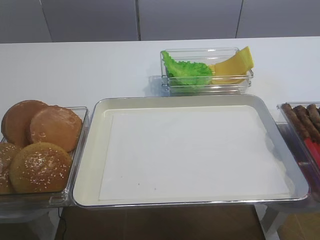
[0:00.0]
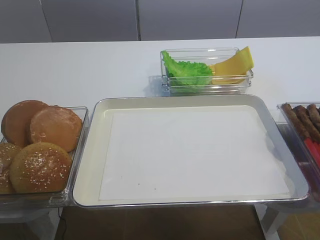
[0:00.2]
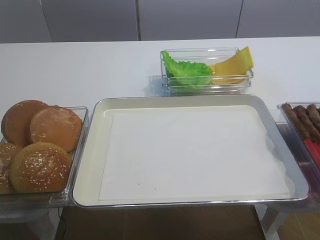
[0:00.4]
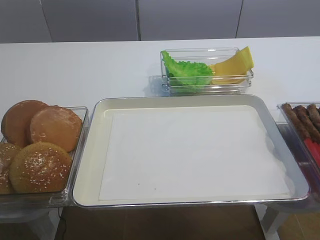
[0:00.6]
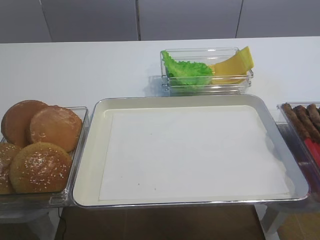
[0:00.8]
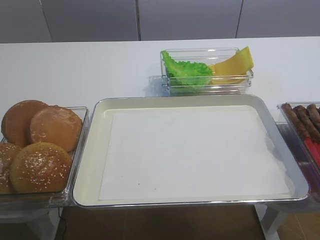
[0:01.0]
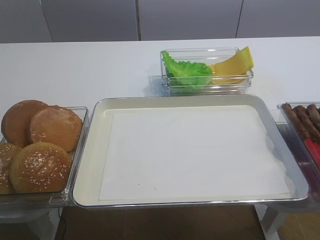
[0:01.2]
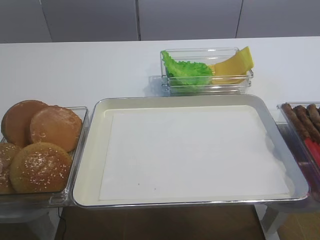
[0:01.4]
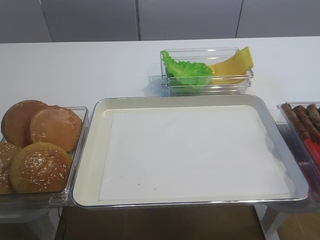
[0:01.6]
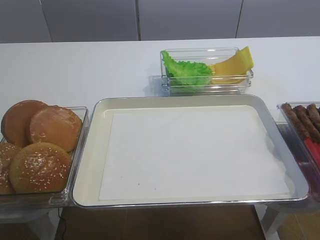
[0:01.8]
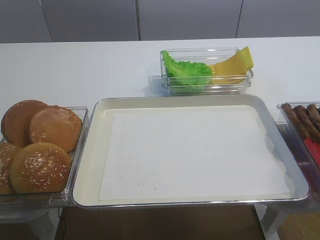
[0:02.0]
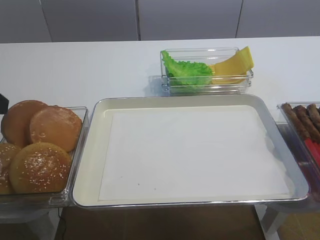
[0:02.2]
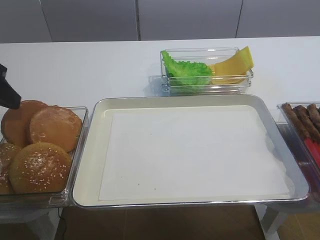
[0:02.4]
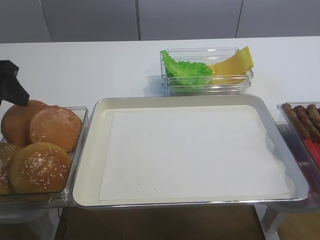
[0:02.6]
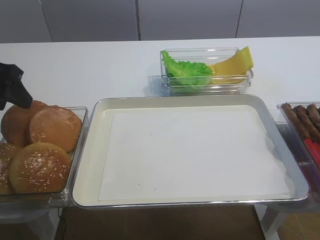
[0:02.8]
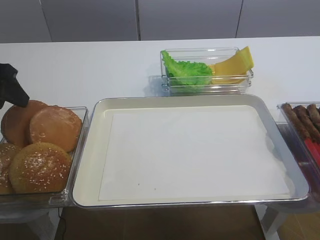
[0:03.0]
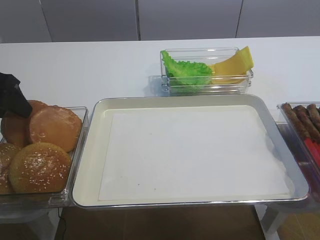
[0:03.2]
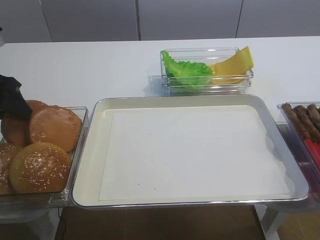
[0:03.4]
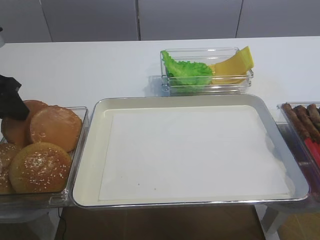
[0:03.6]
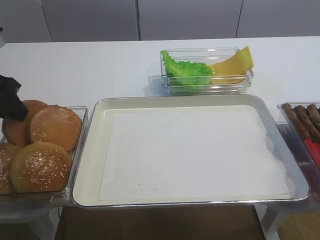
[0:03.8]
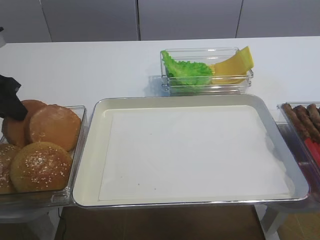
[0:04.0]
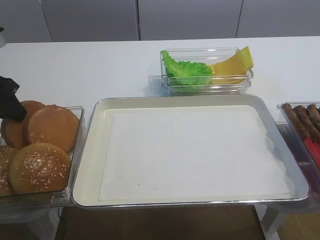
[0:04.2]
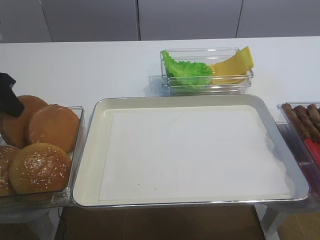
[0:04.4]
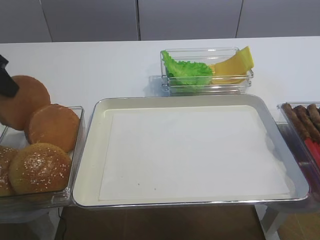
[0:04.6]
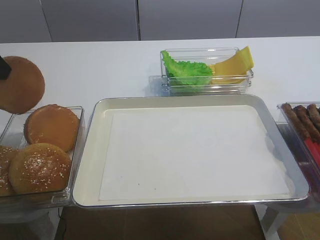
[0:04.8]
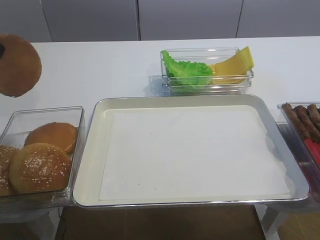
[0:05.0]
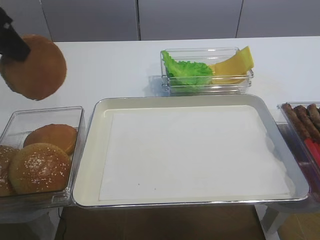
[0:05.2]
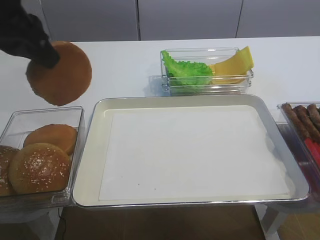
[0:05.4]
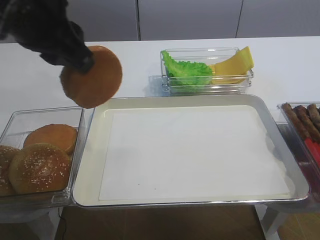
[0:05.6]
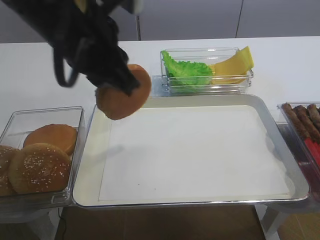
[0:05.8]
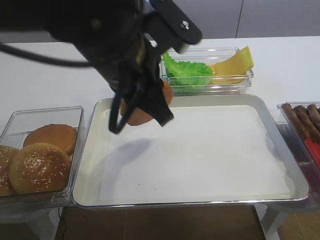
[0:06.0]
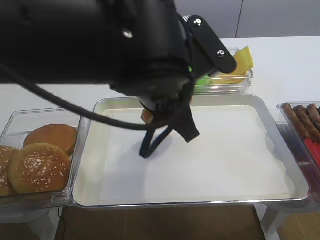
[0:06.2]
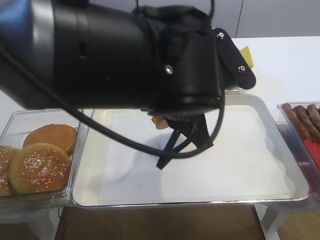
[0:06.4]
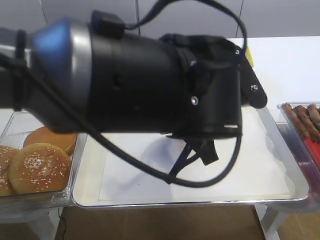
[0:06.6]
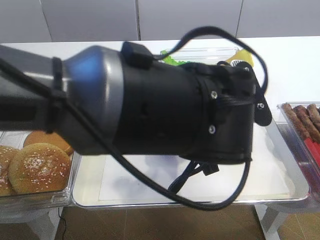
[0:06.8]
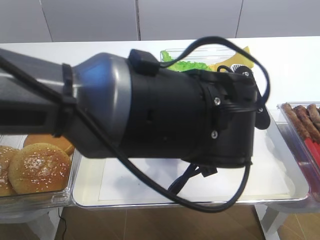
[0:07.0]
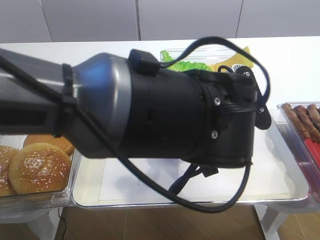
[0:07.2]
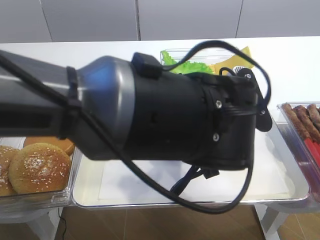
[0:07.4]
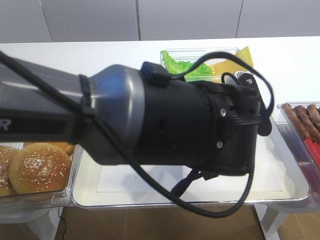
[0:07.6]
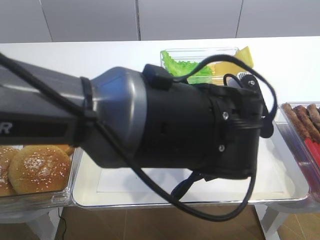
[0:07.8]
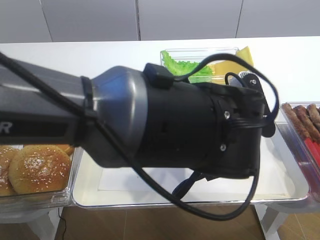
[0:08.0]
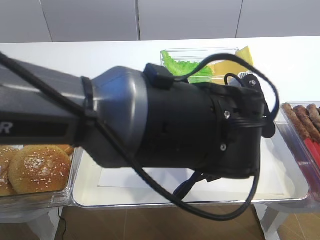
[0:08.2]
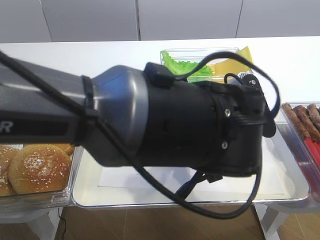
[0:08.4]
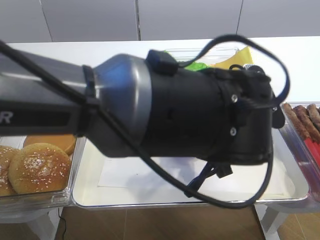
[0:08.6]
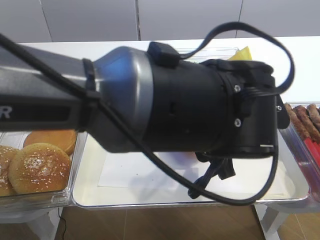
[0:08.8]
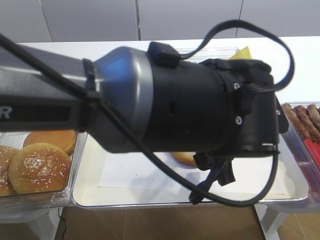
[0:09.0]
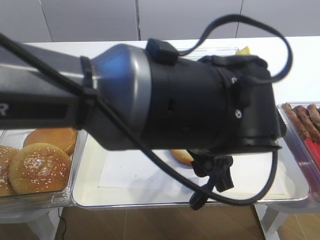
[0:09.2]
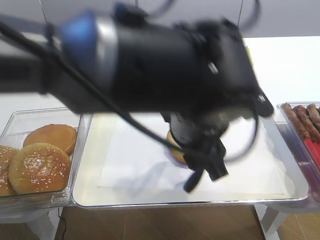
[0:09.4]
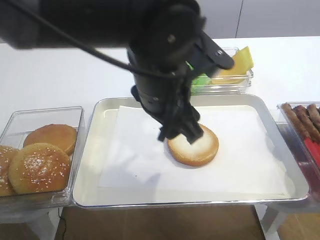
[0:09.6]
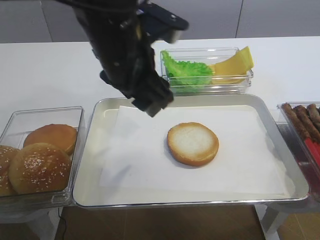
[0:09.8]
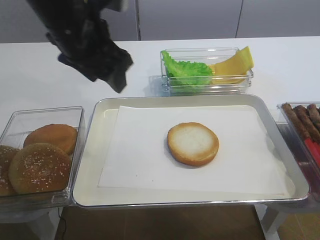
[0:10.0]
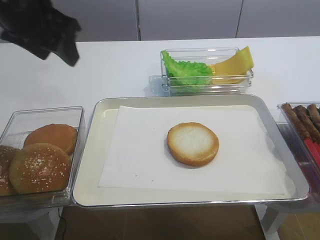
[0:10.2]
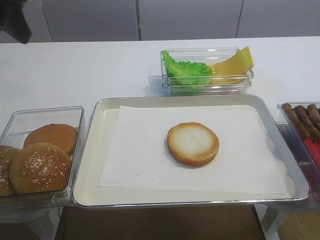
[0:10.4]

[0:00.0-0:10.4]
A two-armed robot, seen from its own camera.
Step, 0:00.0 to 0:04.6: Pick up the bread slice with the left gripper.
Step, 0:04.8 to 0:09.4: Place the bread slice on the tray with the left gripper.
0:01.4 to 0:03.0: The left gripper travels forward by roughly 25 cm.
0:03.0 to 0:04.4: The left gripper closes its fingers.
0:04.4 to 0:06.0: The left gripper goes approximately 25 cm to the right.
0:06.0 to 0:07.4: The right gripper closes its fingers. Meanwhile the left gripper is displaced to the right and downward by some 10 cm.
0:07.4 to 0:09.0: The left gripper opens its fingers, while the right gripper closes.
0:09.0 to 0:10.4: The left gripper goes some 35 cm to the left and upward.

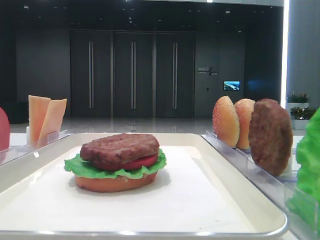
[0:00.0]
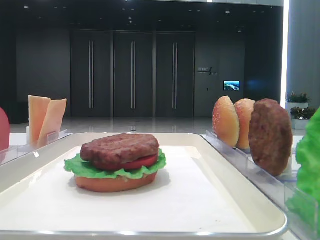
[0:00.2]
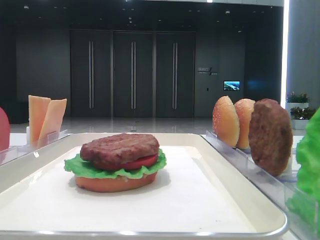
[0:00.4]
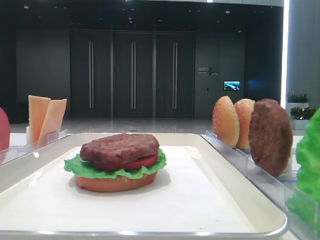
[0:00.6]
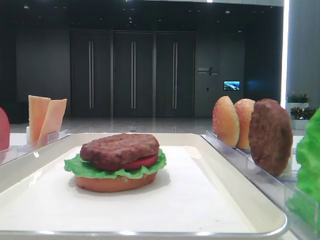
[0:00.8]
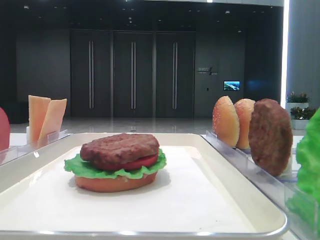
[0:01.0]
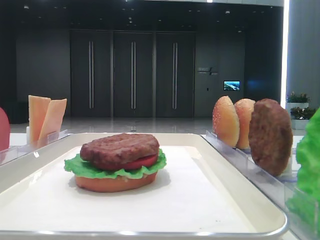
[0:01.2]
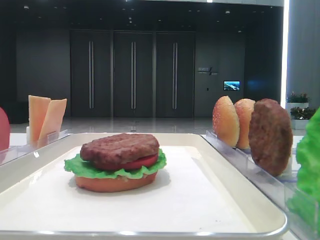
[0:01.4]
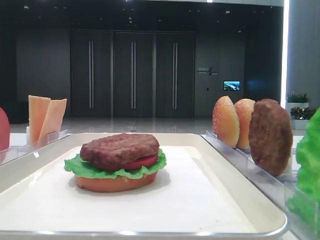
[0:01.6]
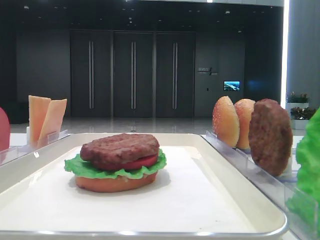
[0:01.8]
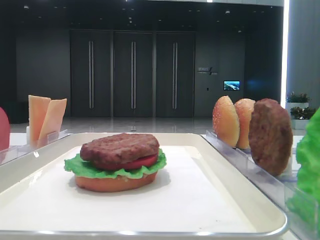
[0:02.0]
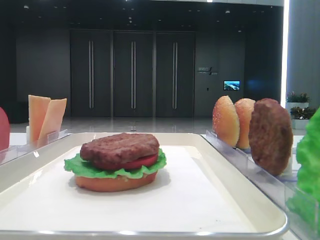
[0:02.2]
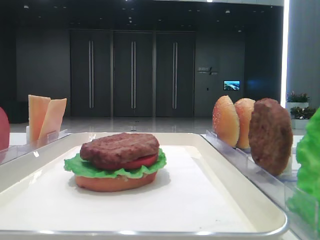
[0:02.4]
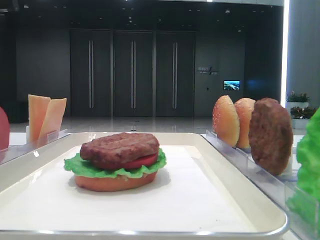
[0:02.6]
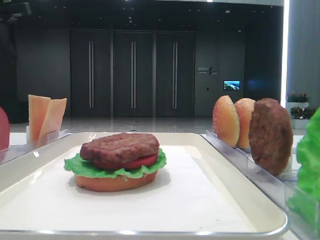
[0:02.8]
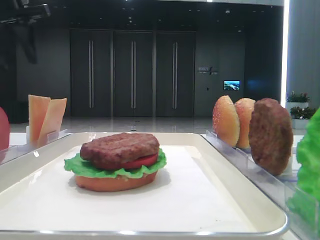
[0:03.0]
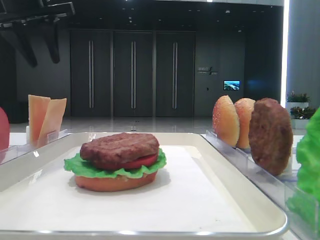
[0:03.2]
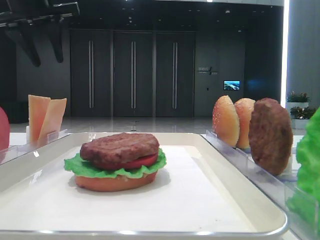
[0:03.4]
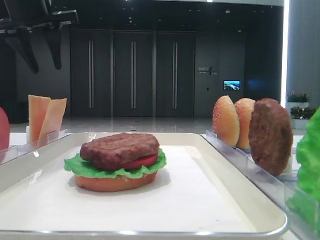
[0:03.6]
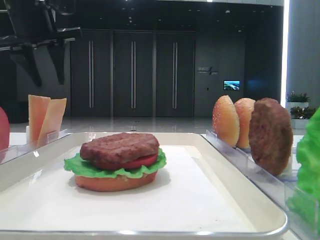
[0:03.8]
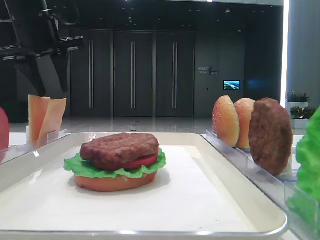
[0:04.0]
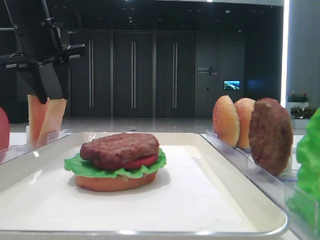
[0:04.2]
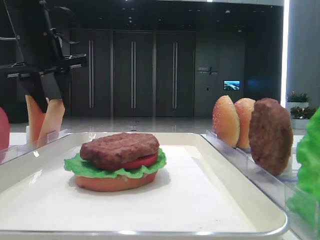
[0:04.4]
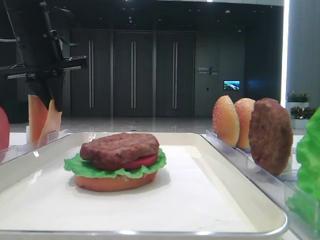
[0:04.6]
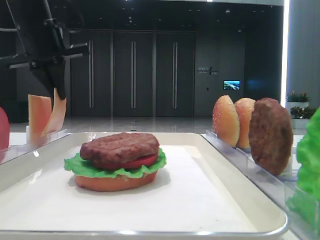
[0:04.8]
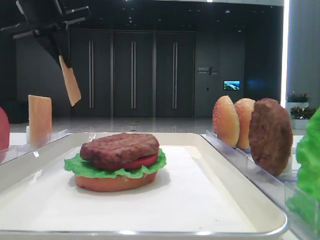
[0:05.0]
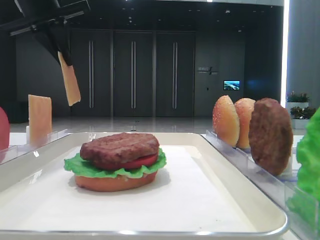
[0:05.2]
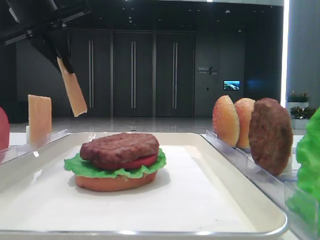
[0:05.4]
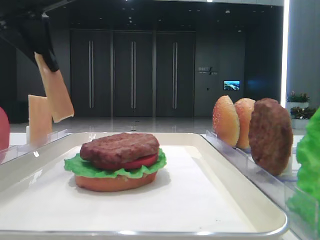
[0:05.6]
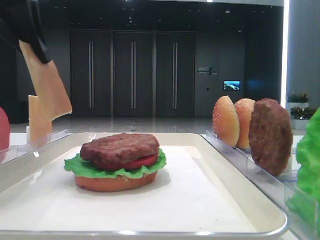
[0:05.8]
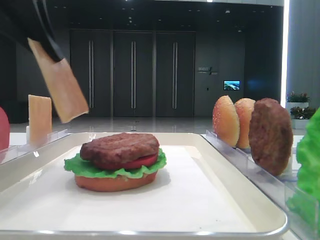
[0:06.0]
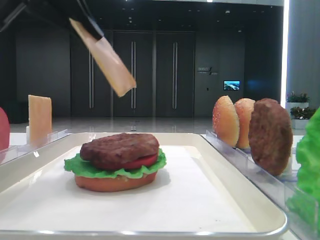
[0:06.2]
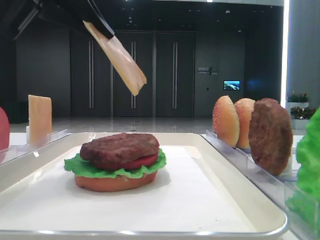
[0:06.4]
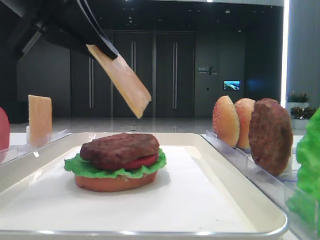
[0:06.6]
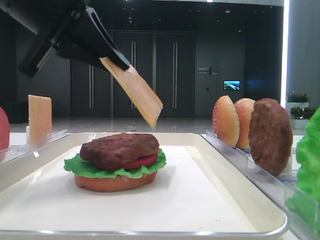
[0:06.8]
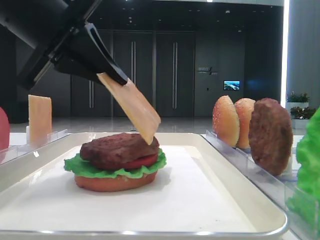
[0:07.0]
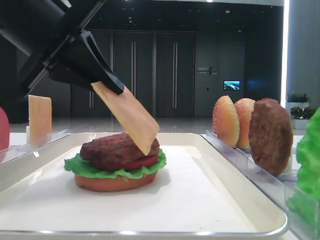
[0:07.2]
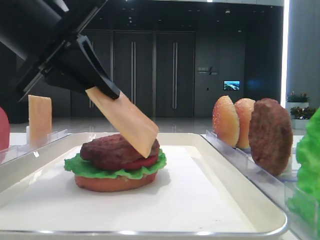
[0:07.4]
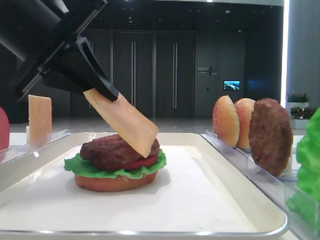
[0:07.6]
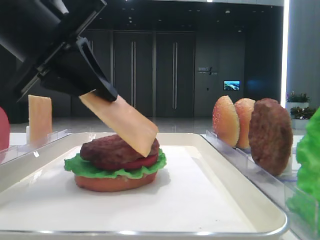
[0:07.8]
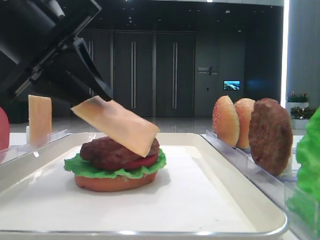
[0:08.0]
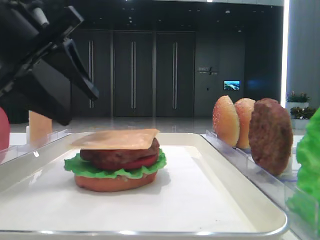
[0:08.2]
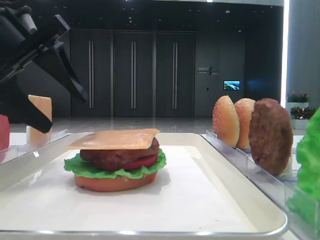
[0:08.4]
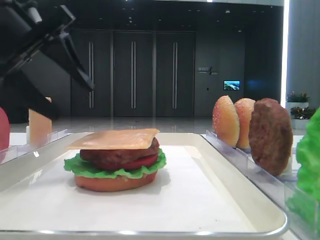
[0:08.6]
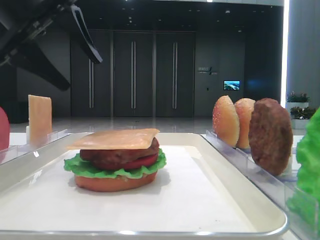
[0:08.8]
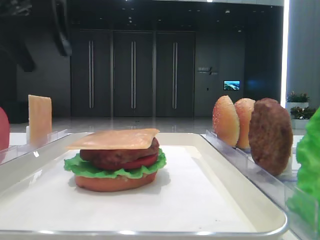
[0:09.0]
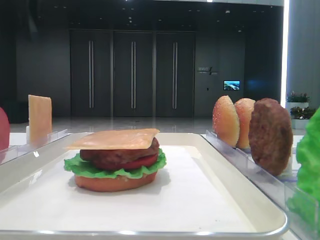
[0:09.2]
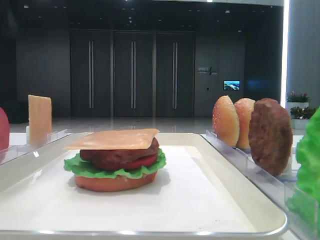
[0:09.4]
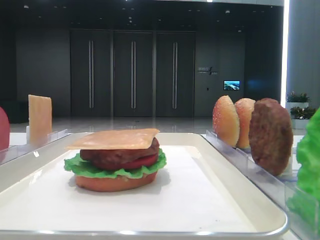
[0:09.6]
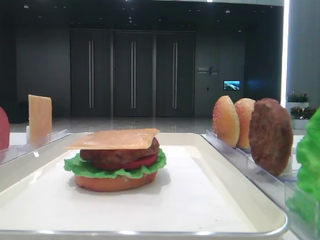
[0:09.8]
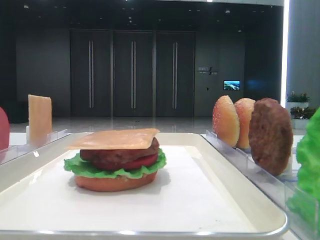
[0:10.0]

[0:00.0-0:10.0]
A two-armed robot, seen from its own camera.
Step, 0:00.0 to 0:04.6: Pick up the cheese slice with the left hand.
Step, 0:04.8 to 0:08.2: Place the cheese slice on the patty with the left hand.
0:01.4 to 0:02.8: The left gripper is displaced forward by some 40 cm.
0:02.8 to 0:04.2: The left gripper goes approximately 10 cm to the right and downward.
0:04.2 to 0:05.8: The left gripper is displaced backward by about 15 cm, and closes its fingers.
0:05.8 to 0:07.2: The left gripper shifts about 5 cm downward.
0:07.2 to 0:08.6: The left gripper changes place by approximately 5 cm, and opens its fingers.
0:08.6 to 0:10.0: The left gripper shifts roughly 20 cm upward and to the left.

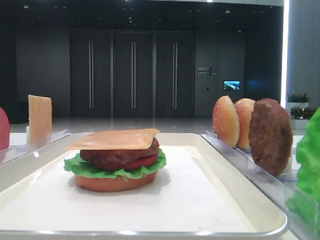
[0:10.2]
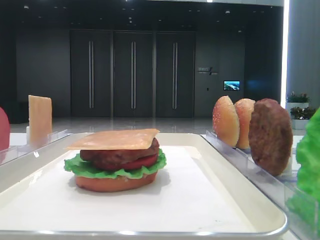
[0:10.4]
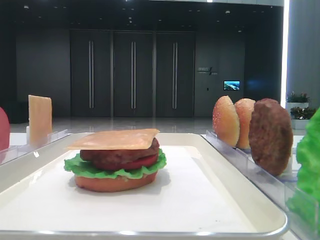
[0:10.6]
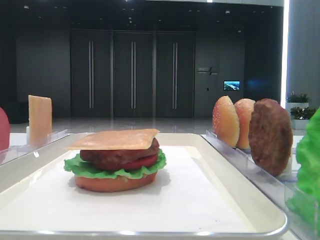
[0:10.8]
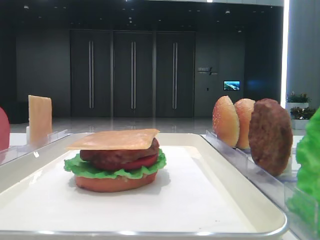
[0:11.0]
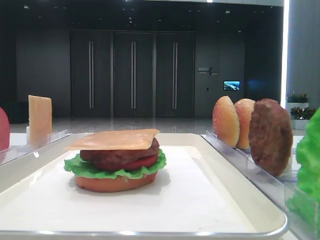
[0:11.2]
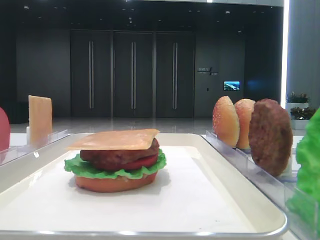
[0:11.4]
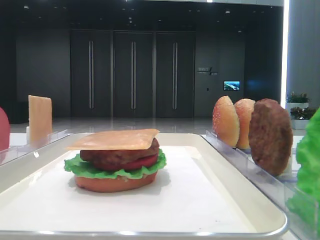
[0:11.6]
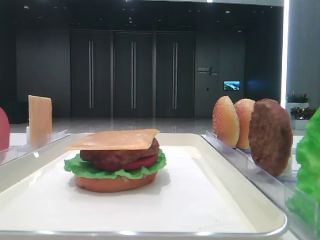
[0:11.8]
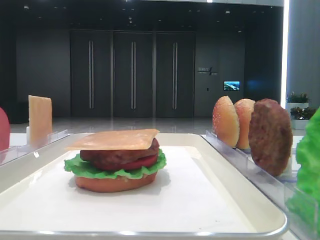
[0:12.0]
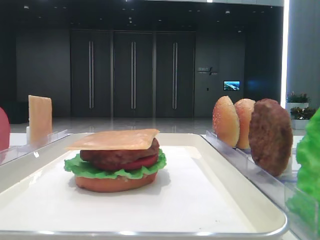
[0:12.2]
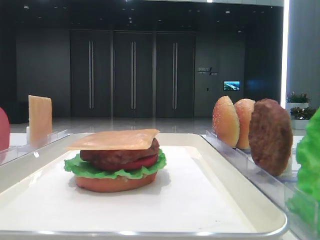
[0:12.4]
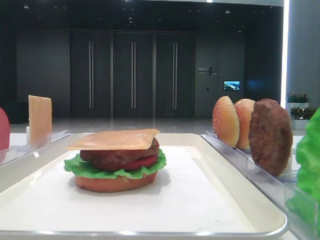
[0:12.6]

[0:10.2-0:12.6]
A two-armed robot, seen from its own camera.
0:11.4 to 0:12.6: Neither gripper changes place.
